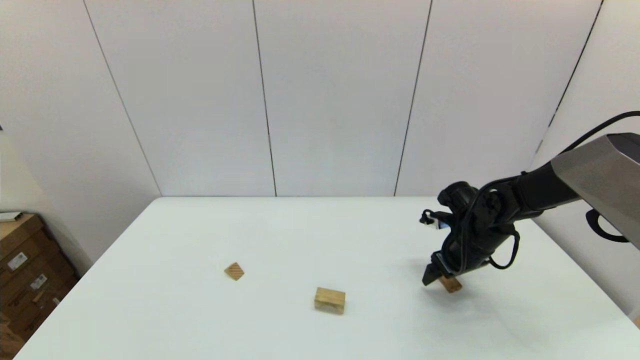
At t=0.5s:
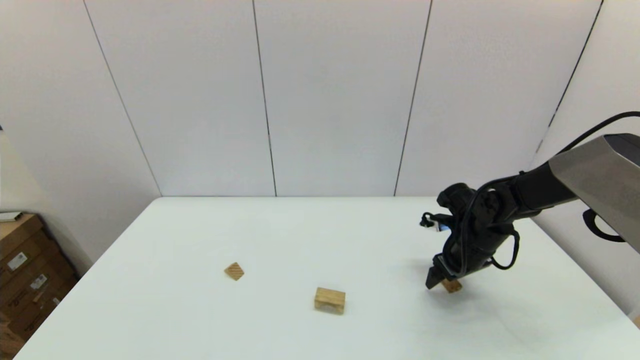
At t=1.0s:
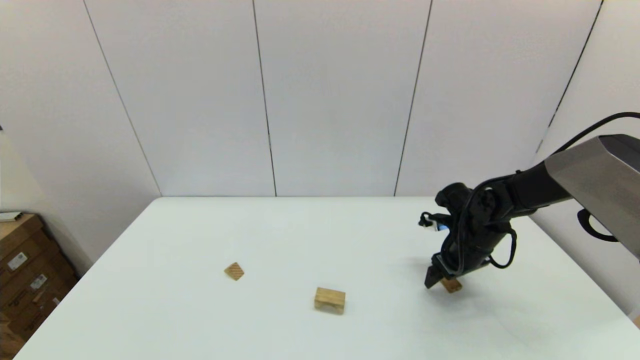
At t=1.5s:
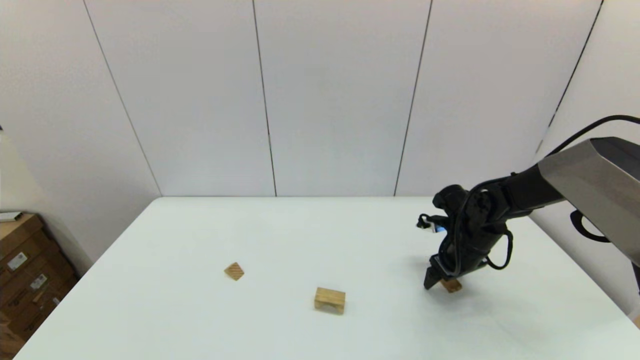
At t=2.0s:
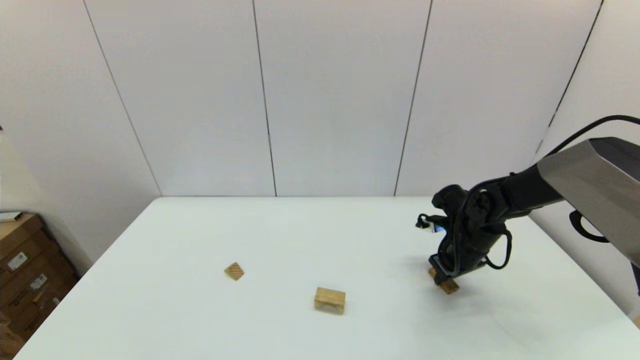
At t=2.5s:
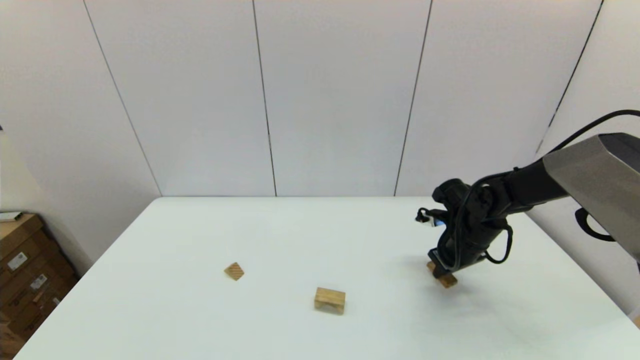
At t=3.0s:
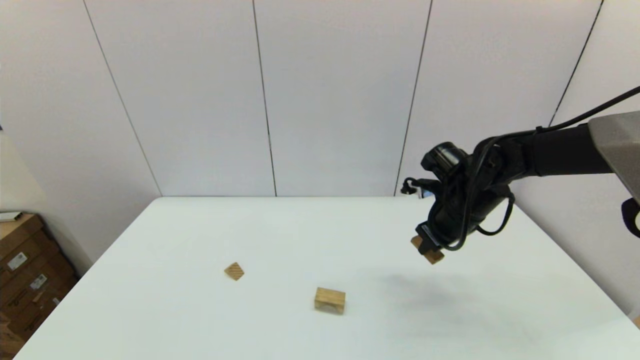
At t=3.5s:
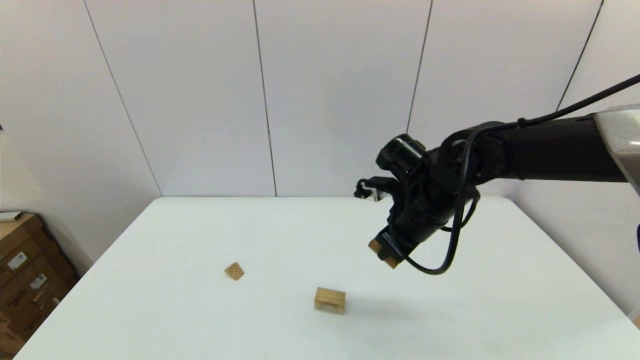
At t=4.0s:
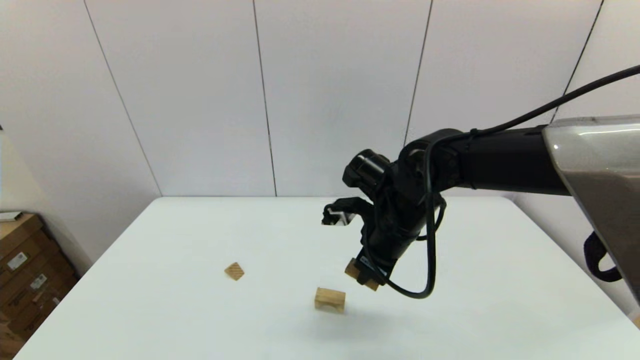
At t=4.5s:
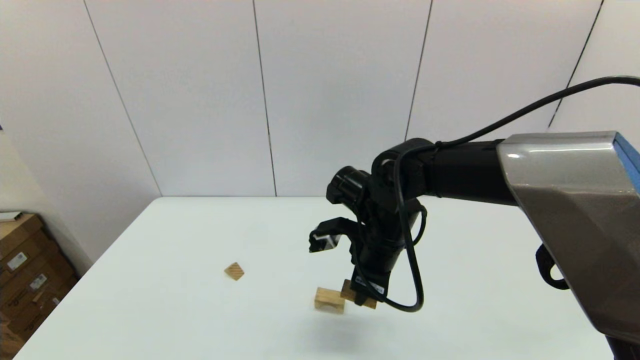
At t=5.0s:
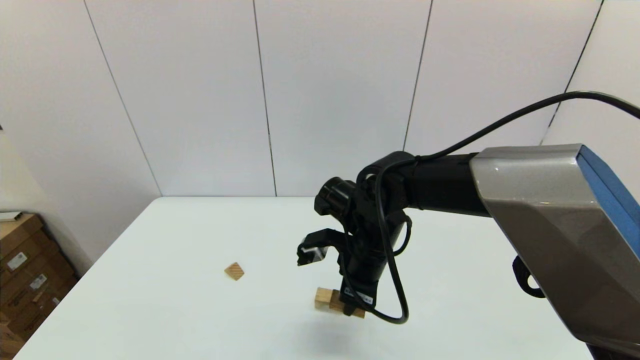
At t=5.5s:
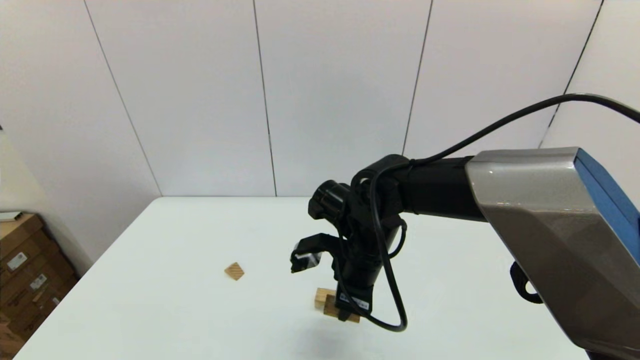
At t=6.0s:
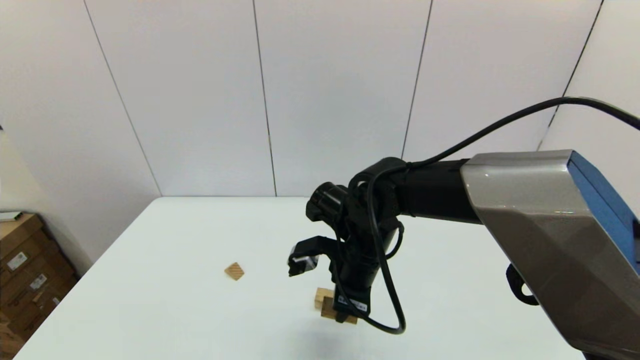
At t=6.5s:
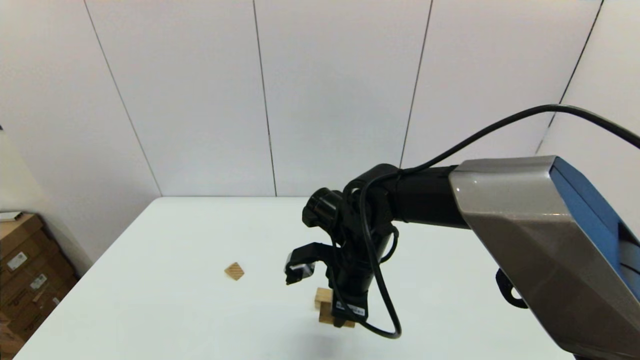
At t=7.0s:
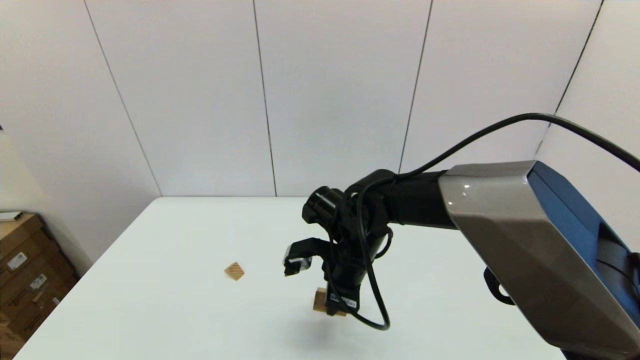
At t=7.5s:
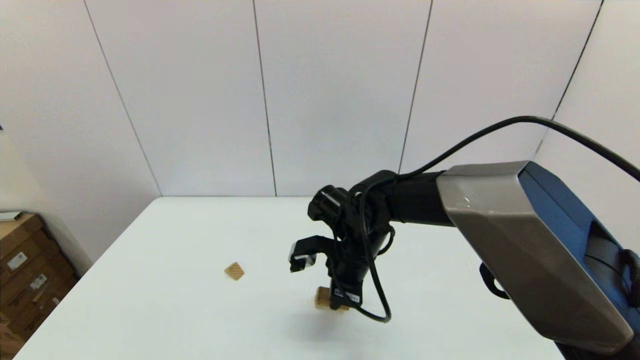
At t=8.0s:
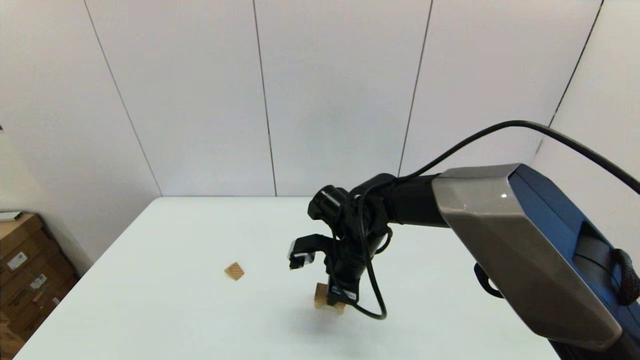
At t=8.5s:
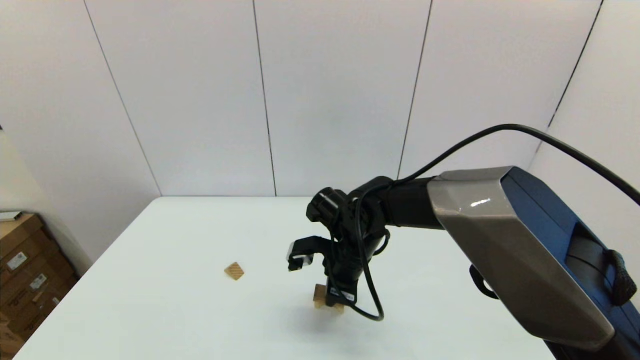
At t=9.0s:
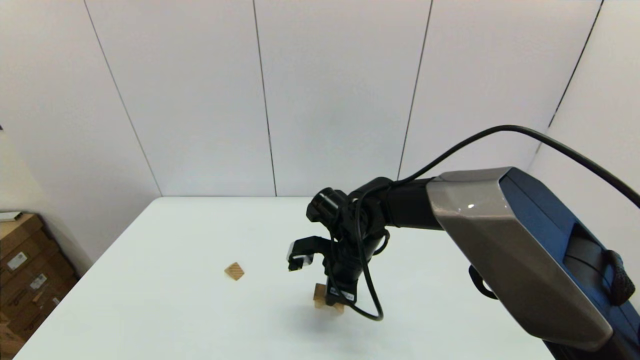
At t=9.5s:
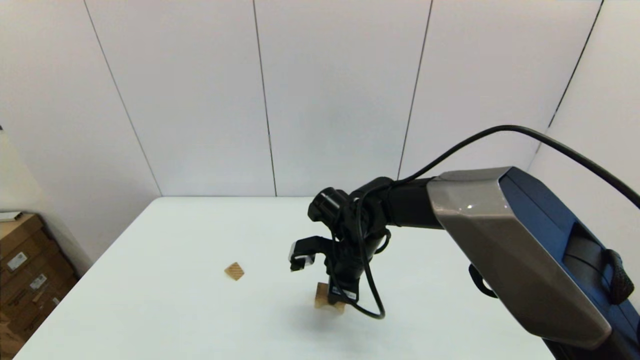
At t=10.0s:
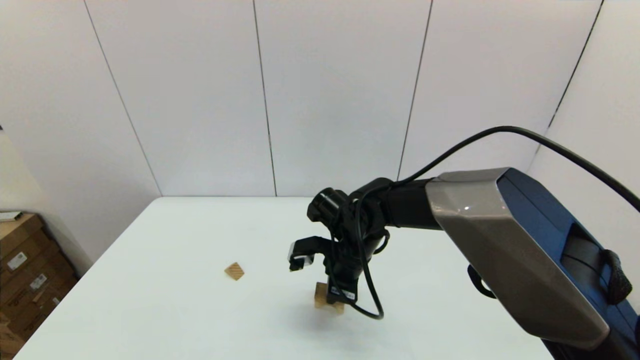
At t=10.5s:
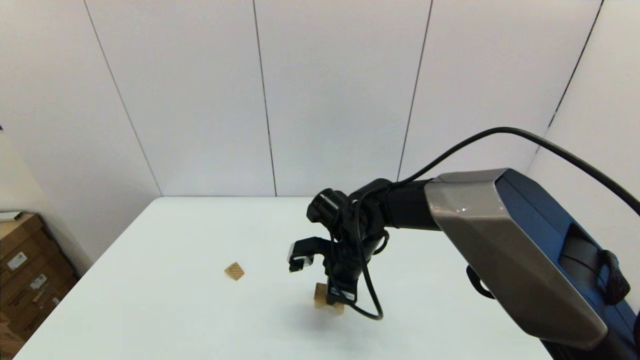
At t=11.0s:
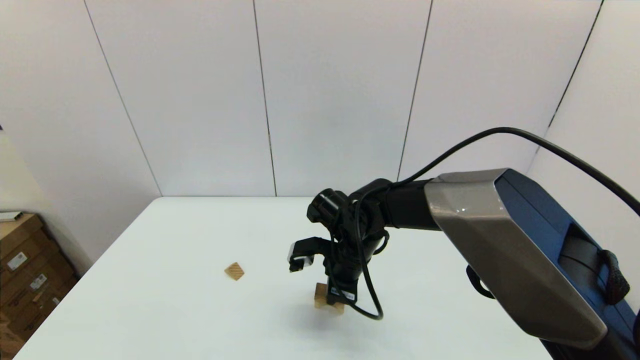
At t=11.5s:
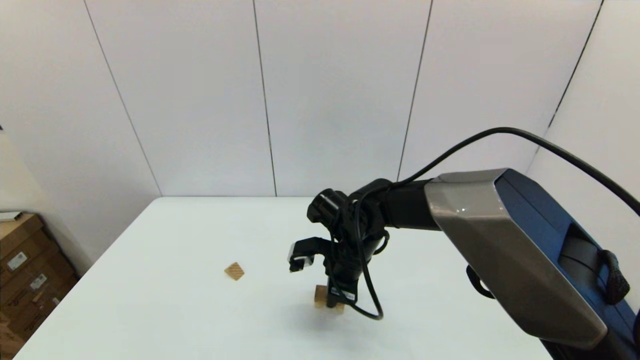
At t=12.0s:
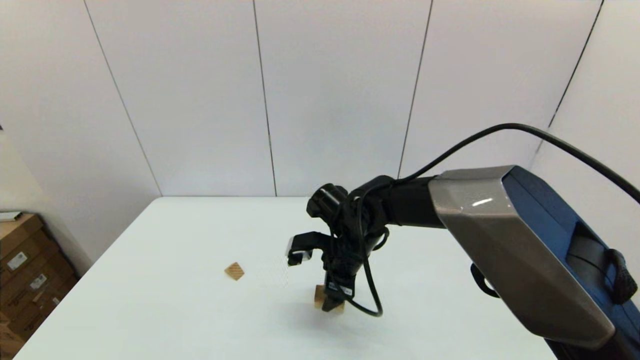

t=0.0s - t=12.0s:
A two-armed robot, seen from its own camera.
Task of the whole recording: place the arched building blocks in the center of the table, set up the rectangular building blocks, and then set up the triangular building blocks.
Step, t=0.0s - t=2.0s: Grasp the box-shaped block with the right gripper.
Step, t=2.5s - t=11.5s: Place the box-shaped block onto the arch-shaped block with the right gripper.
t=0.0s - t=2.0s: The right gripper closes its fingers.
t=2.0s - t=4.0s: The right gripper heads to the left, upward and backward, covering some 20 cm.
t=4.0s - t=6.0s: The right gripper changes place by about 5 cm.
t=6.0s - t=8.0s: The right gripper moves some 5 cm.
t=8.0s - t=10.0s: Neither gripper changes place.
t=10.0s - t=12.0s: The right gripper opens its fingers.

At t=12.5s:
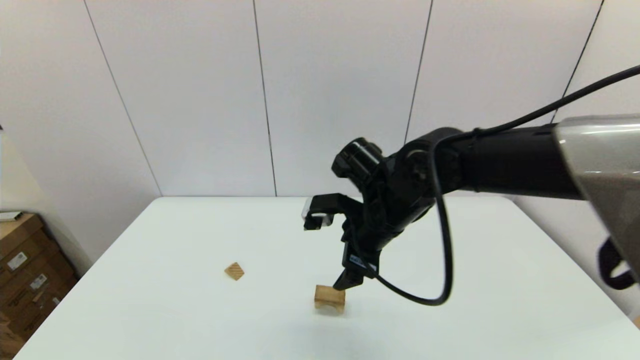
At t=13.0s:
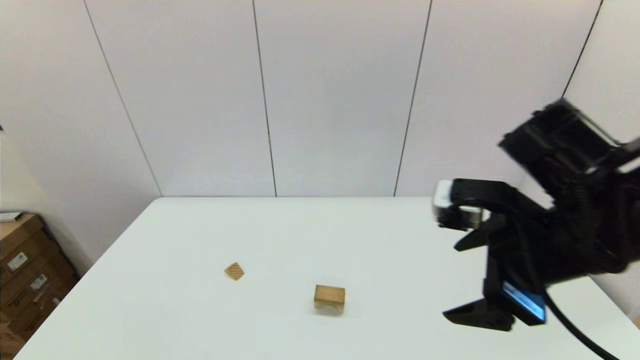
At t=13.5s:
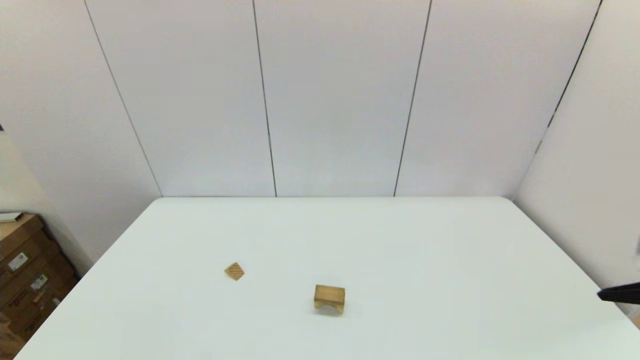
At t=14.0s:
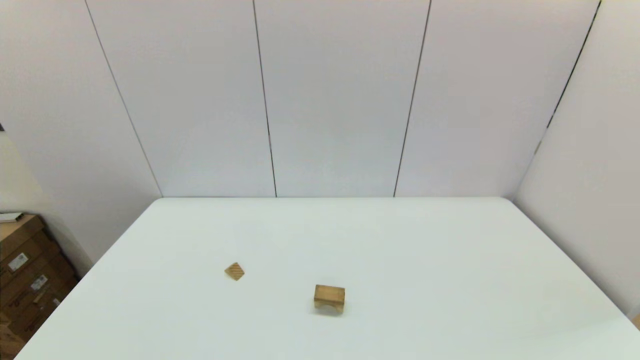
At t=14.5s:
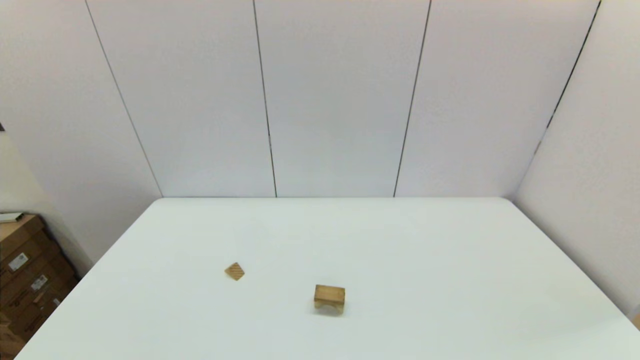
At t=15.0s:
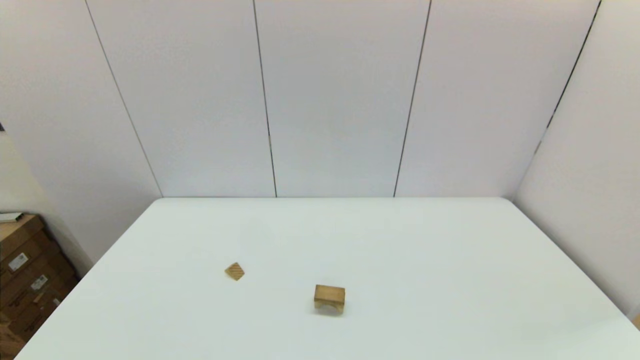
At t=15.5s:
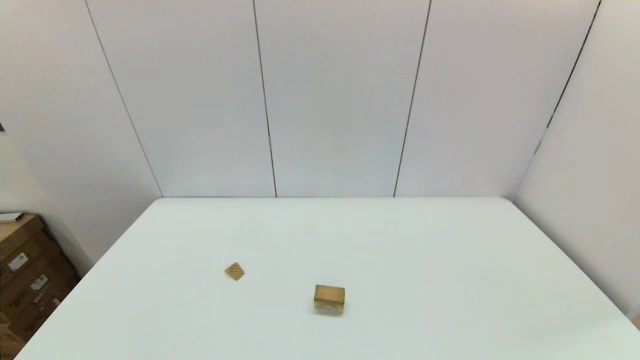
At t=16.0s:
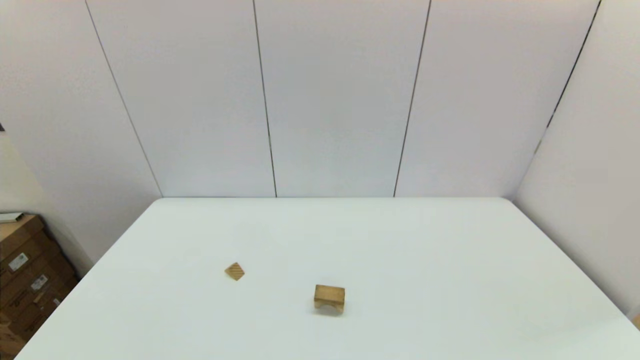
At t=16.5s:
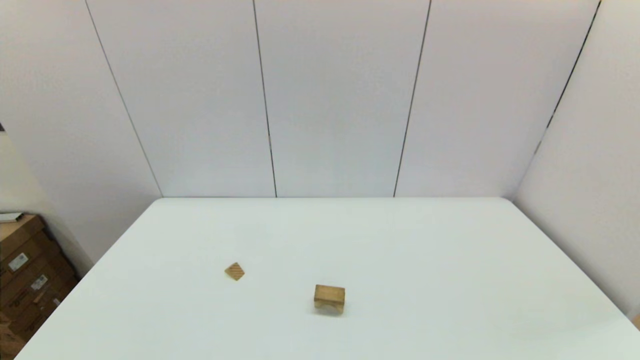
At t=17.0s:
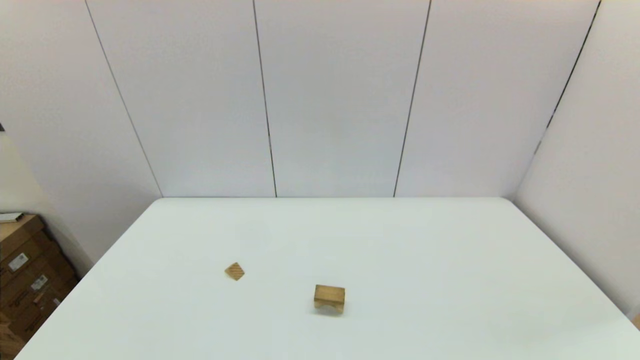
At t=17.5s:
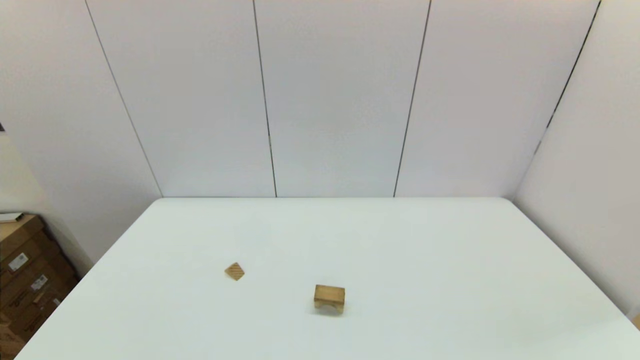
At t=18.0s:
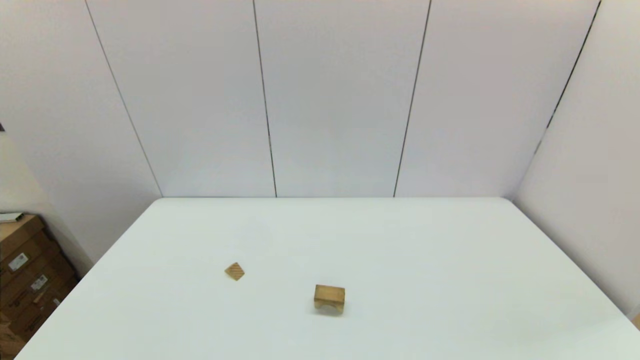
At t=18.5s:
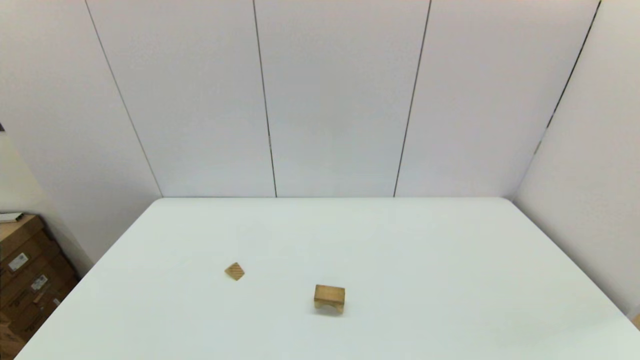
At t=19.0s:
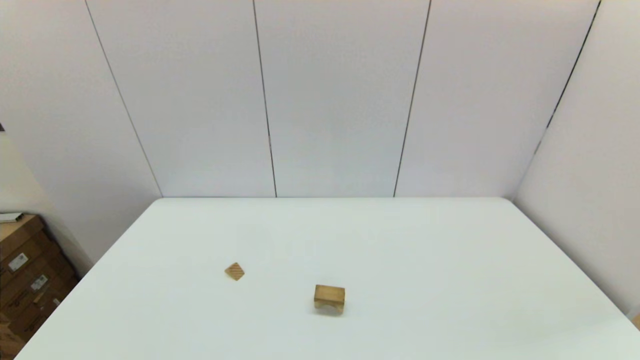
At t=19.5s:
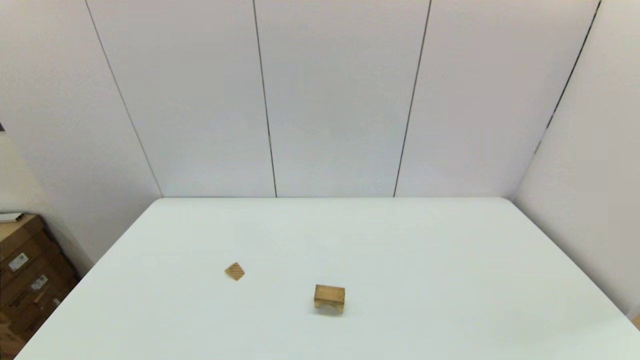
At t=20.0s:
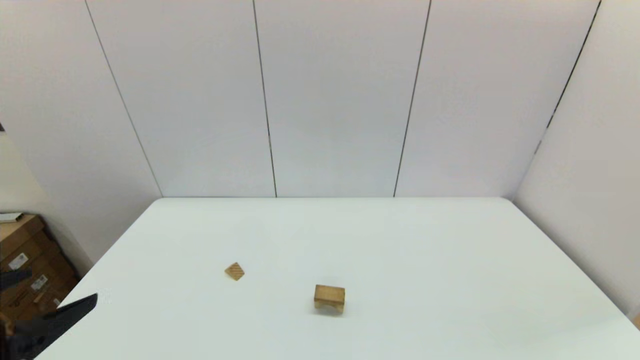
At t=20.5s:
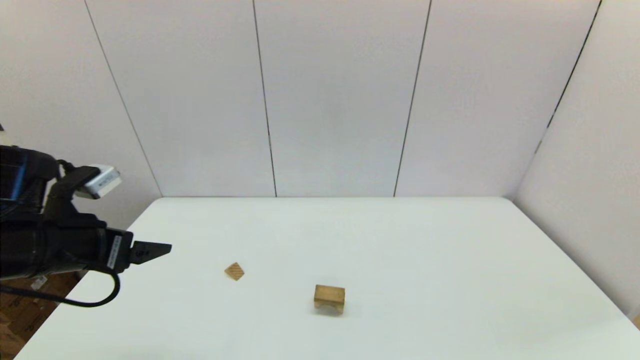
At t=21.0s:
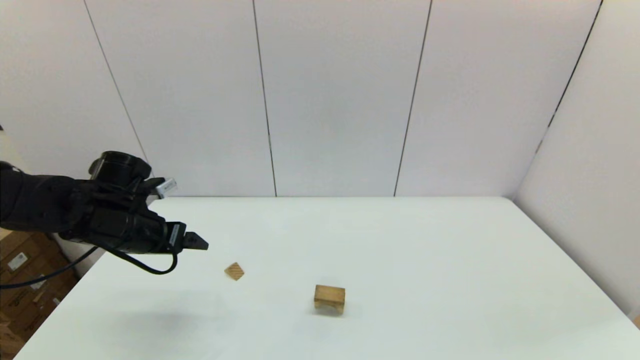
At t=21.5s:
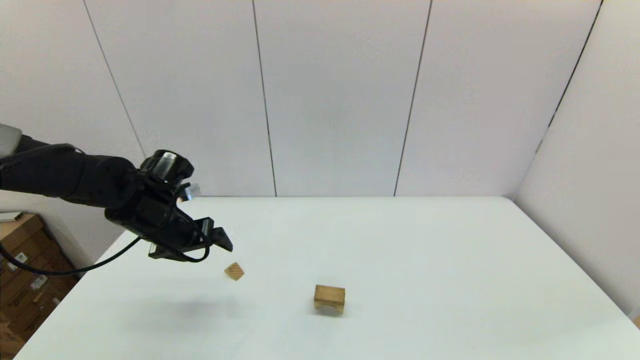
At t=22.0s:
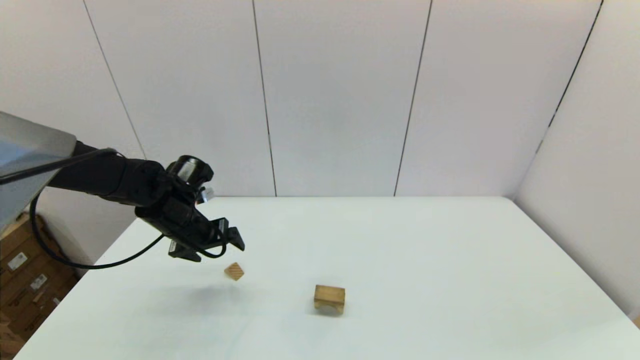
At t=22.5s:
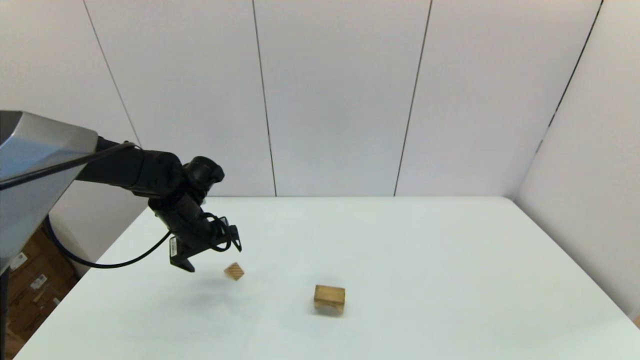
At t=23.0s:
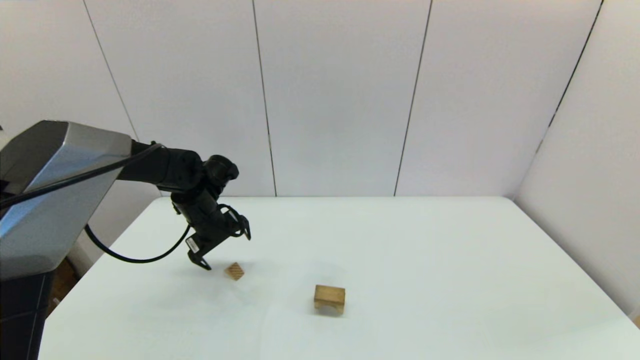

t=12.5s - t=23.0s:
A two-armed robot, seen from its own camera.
Task of the whole recording: place the arched building blocks in the center of the table, set up the rectangular building blocks, and then set up the triangular building blocks.
t=12.5s - t=14.5s: The right gripper travels backward and to the right by roughly 40 cm.
t=19.0s - t=21.0s: The left gripper is displaced forward by some 35 cm.
t=21.0s - t=23.0s: The left gripper goes roughly 10 cm forward and to the right.
